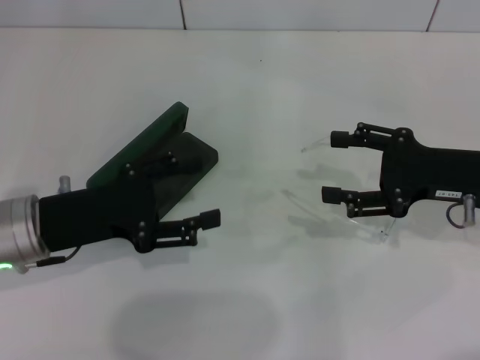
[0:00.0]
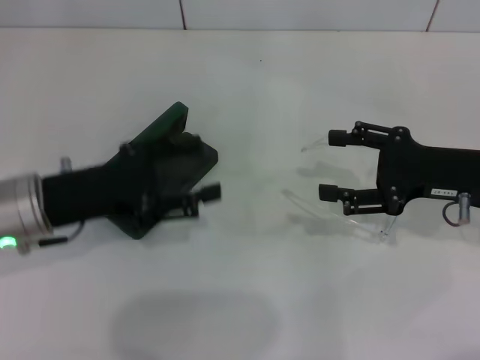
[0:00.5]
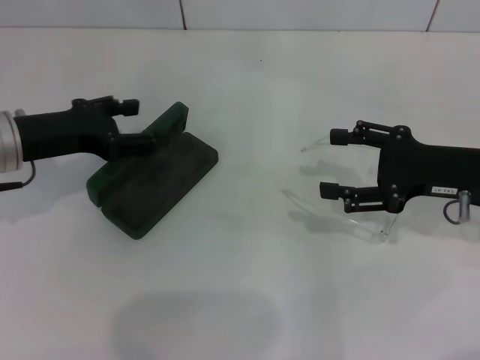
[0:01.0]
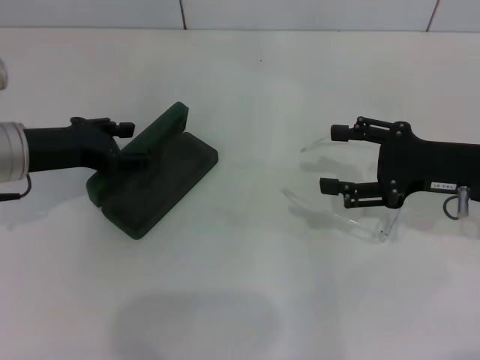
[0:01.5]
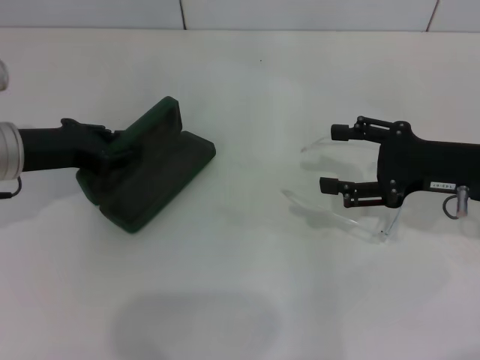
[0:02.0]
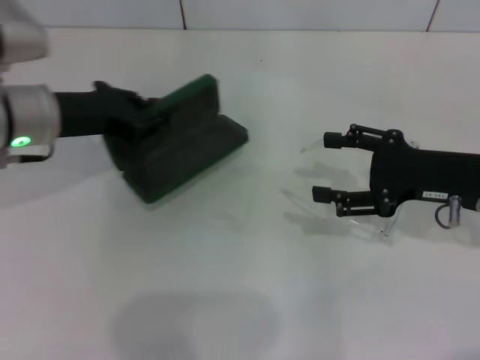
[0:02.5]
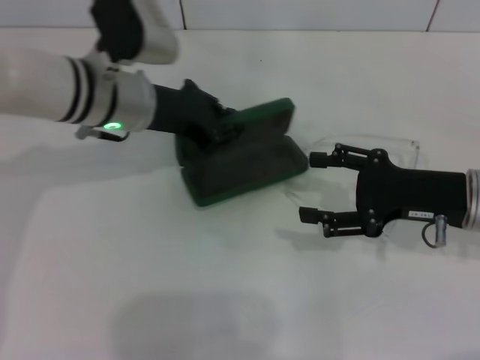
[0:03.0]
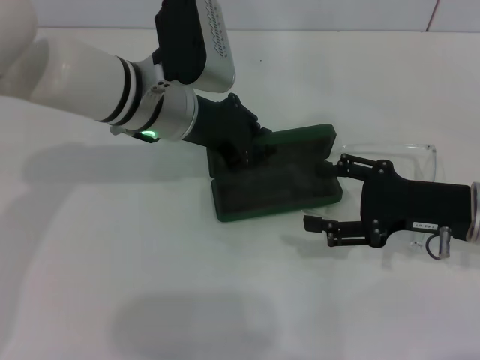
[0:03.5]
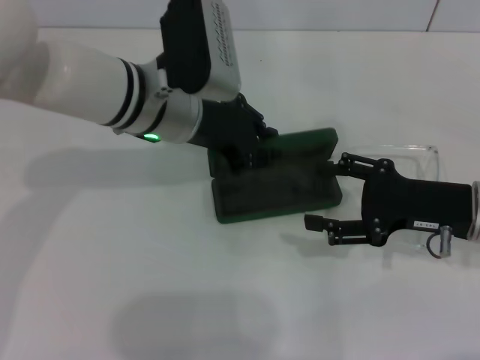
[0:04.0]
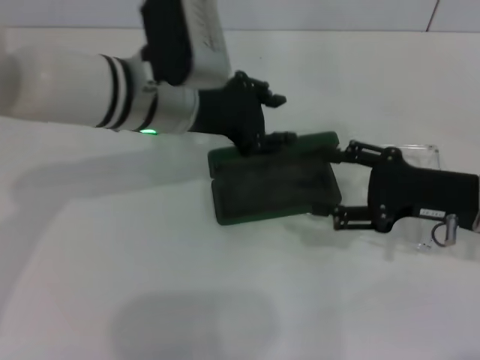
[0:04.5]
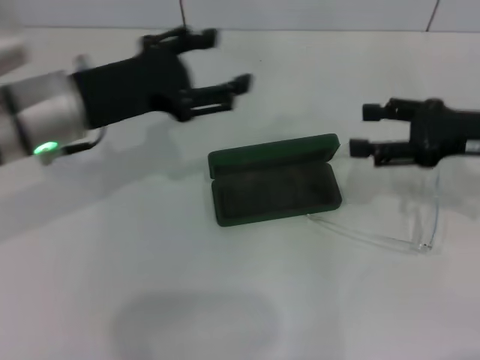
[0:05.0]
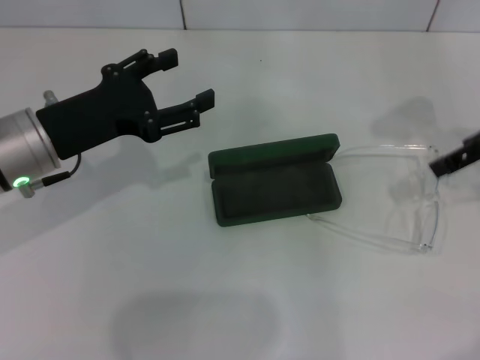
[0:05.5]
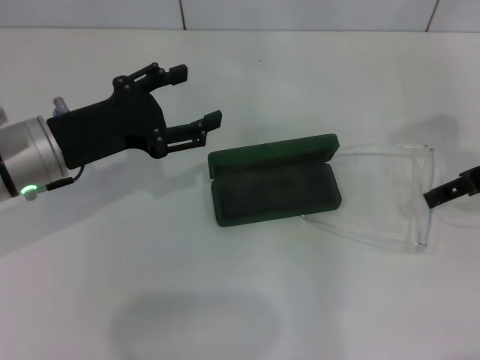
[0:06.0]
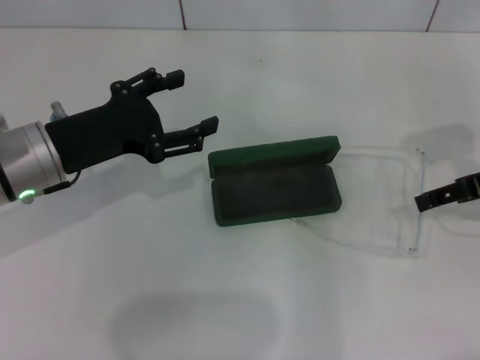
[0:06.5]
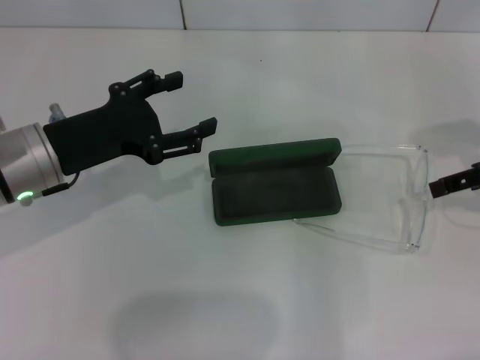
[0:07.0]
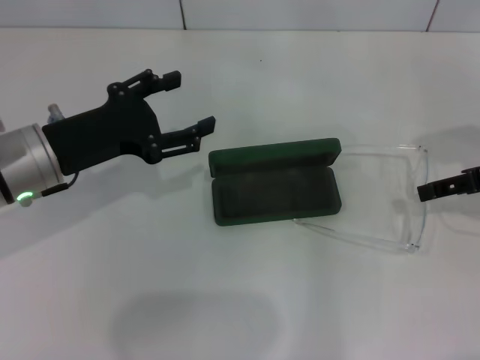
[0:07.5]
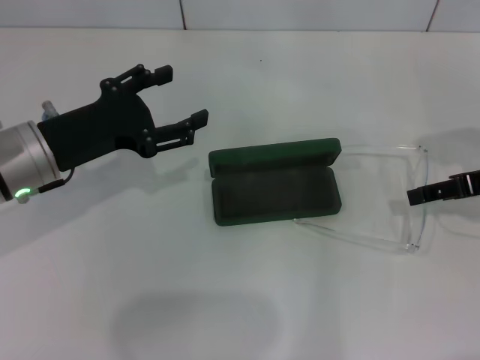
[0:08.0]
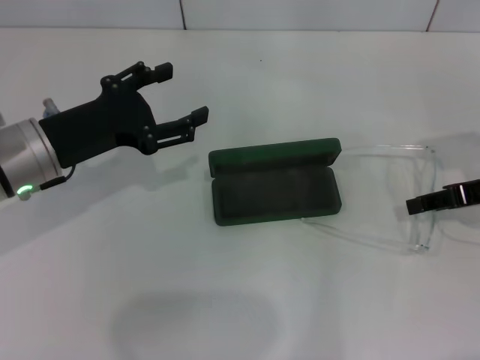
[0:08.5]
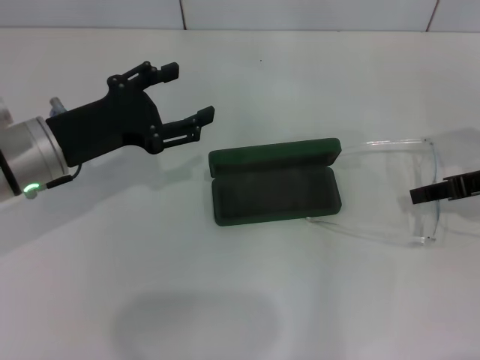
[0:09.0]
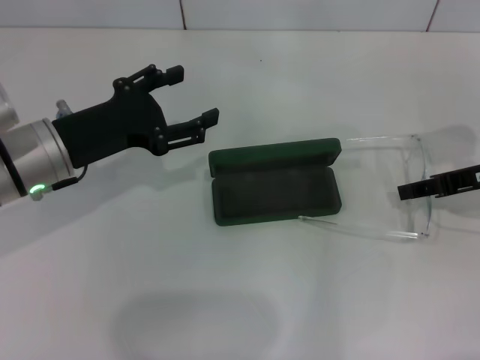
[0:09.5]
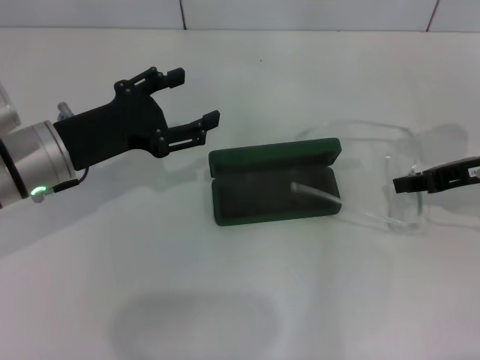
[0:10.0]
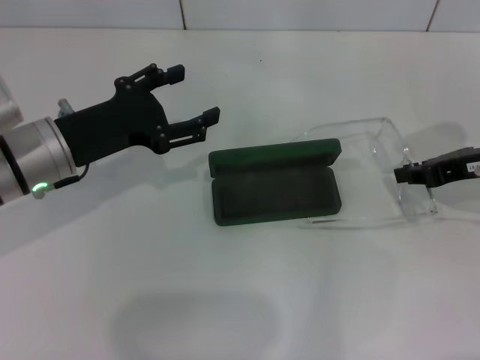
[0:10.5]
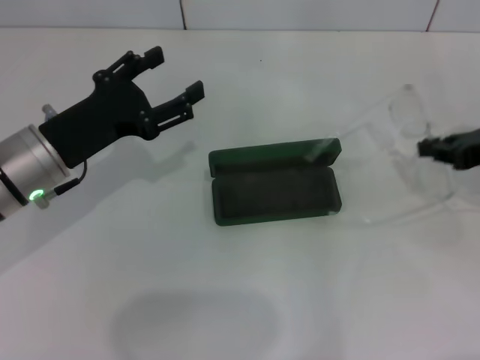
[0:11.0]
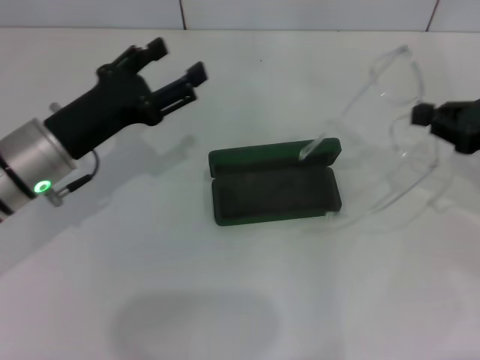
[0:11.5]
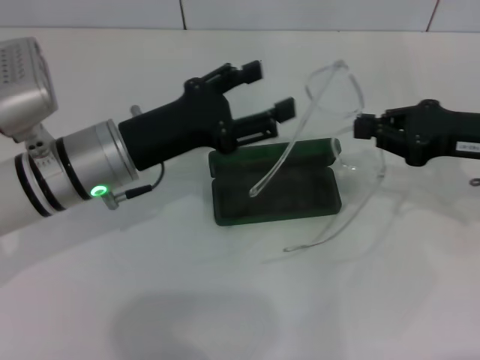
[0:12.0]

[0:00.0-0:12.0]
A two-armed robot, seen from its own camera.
Step, 0.0 to 1.5 s: Grab the glasses case with your left hand.
Step, 2.0 to 4.0 s: Place the glasses case in the center of the table with your left hand.
Step, 4.5 to 9.0 s: Grab the eyeglass frame with your right hand.
0.0 to 2.0 s: The left gripper moves forward, about 5 cm, and closes up.
2.0 to 4.0 s: The left gripper heads to the right, covering roughly 15 cm.
4.0 to 6.0 s: The left gripper moves to the left and backward, about 15 cm, and opens up. Meanwhile the right gripper travels upward by roughly 10 cm.
6.0 to 8.0 s: The grippers move only a little.
8.0 to 10.0 s: The right gripper closes up.
10.0 to 12.0 s: The left gripper shifts approximately 5 cm to the right.

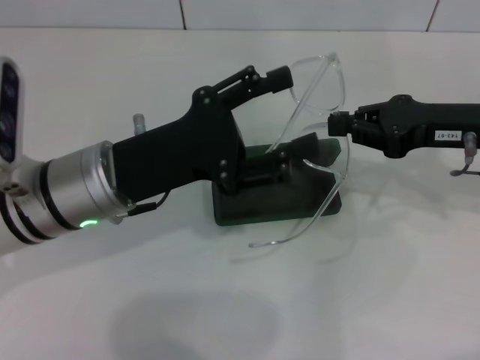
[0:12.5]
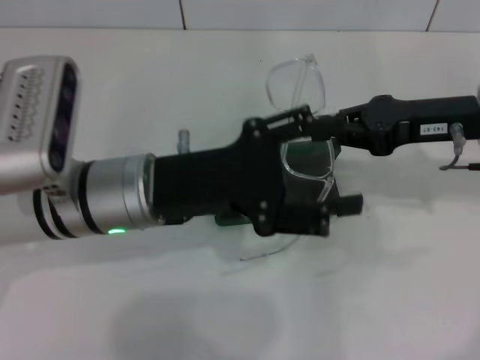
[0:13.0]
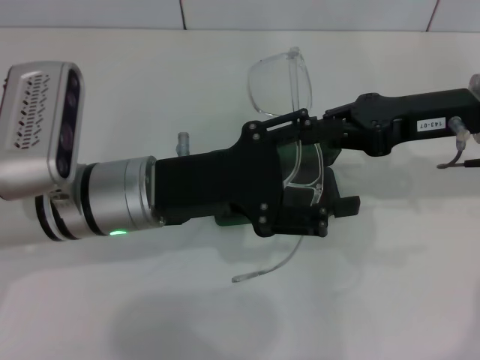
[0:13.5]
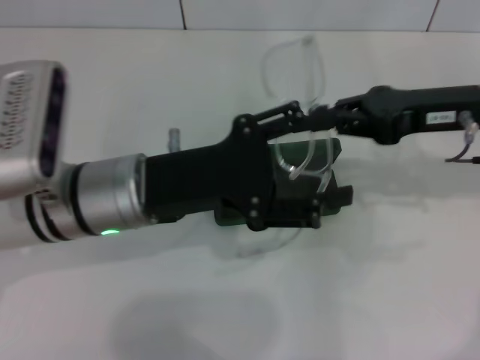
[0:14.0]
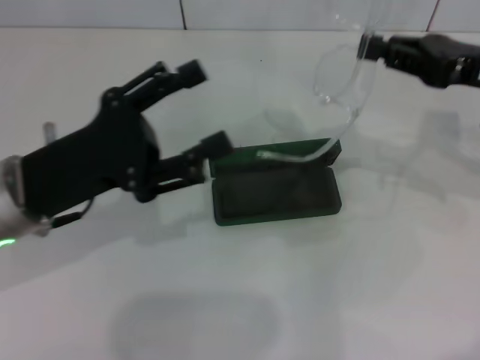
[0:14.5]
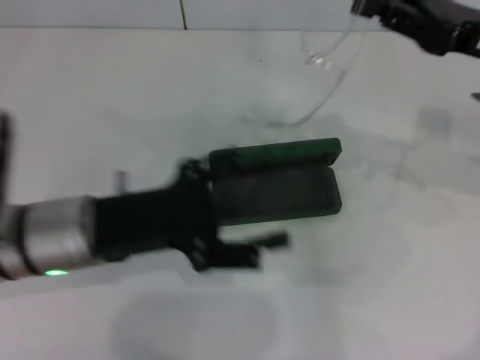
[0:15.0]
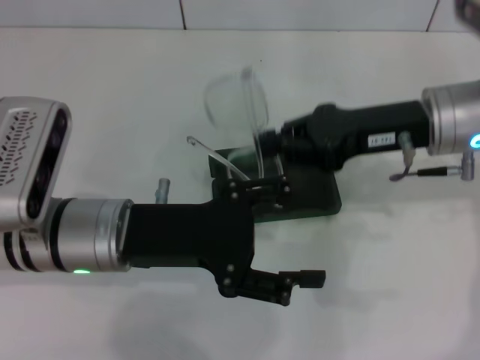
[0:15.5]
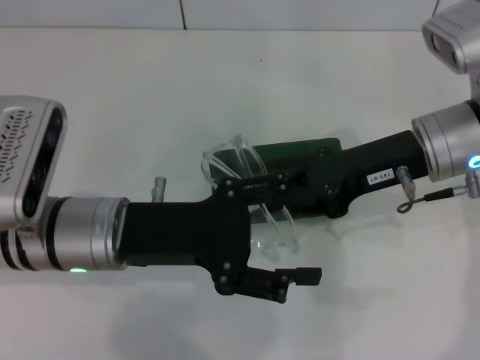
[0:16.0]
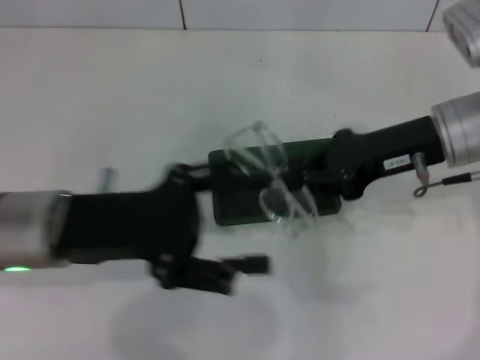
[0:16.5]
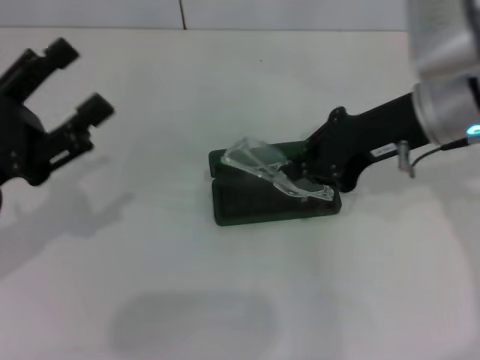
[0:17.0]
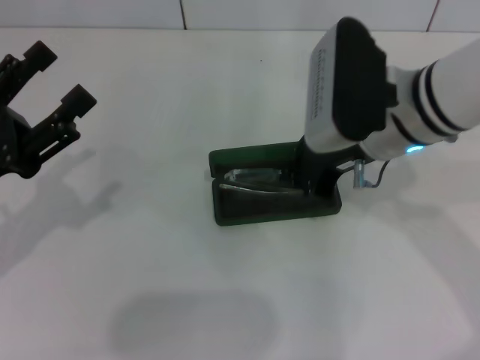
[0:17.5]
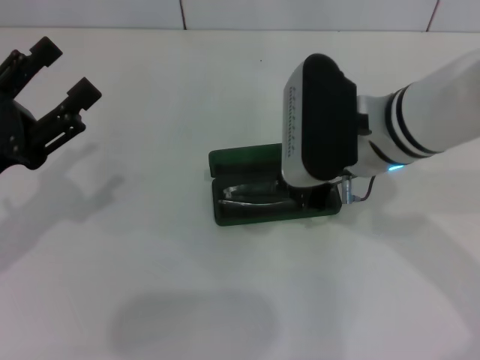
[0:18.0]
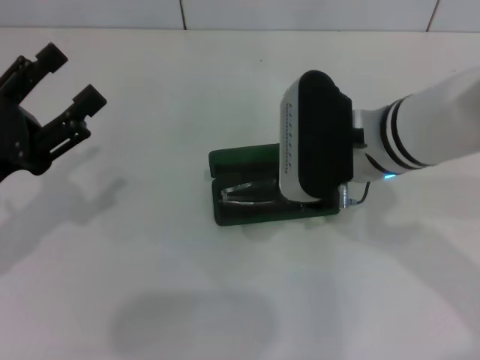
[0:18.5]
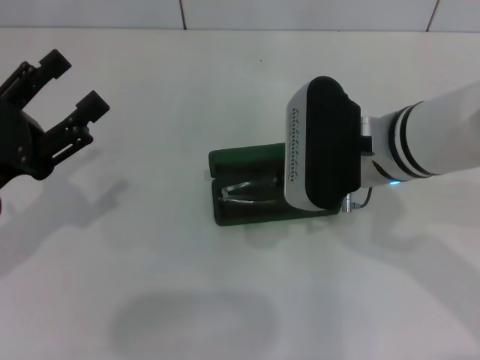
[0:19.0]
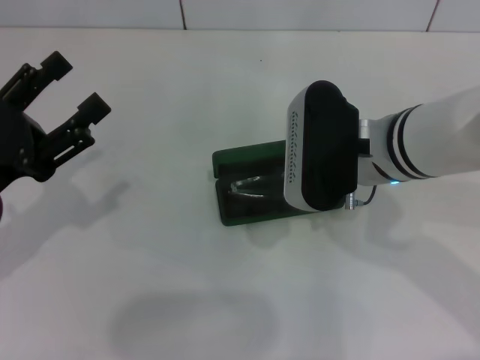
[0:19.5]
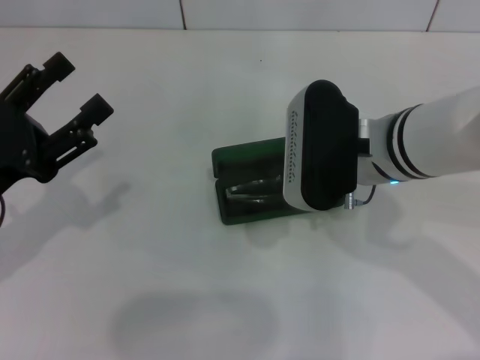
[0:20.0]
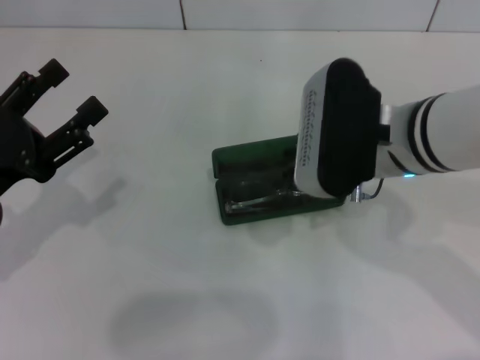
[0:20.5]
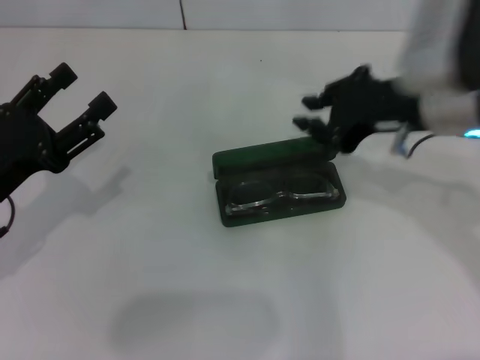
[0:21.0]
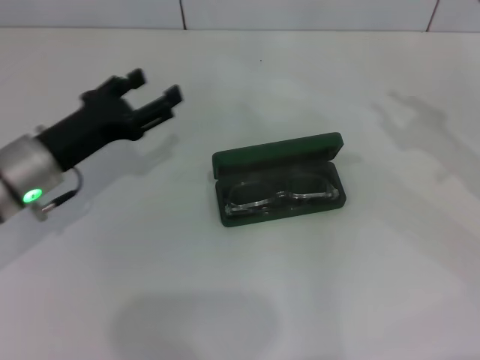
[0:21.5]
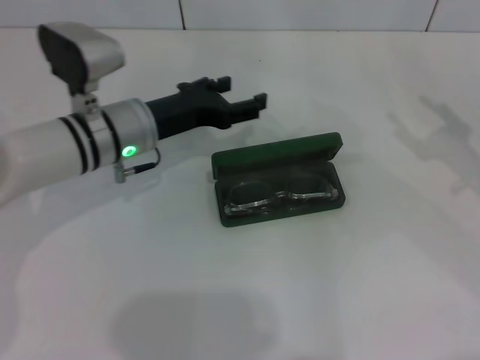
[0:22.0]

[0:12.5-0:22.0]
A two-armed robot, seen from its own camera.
Step, 12.5 to 16.0 s: Fold the frame with your left hand.
Step, 16.5 to 20.0 s: Put the glasses into the case with your right hand.
12.5 to 14.5 s: The left gripper goes approximately 5 cm to the left.
14.5 to 16.5 s: The right gripper moves to the left, some 10 cm.
16.5 to 18.0 s: The grippers both shift to the left by about 10 cm.
18.0 to 20.0 s: There are only small adjustments of the grippers.
20.0 to 22.0 s: The left gripper shifts about 20 cm forward and to the right. The right gripper is displaced to the right by some 25 cm, and opens its fingers.

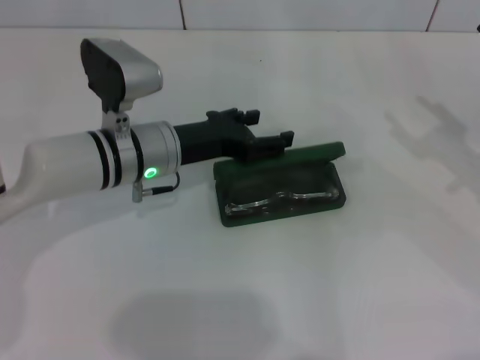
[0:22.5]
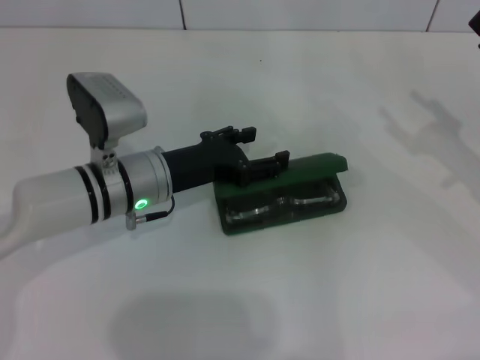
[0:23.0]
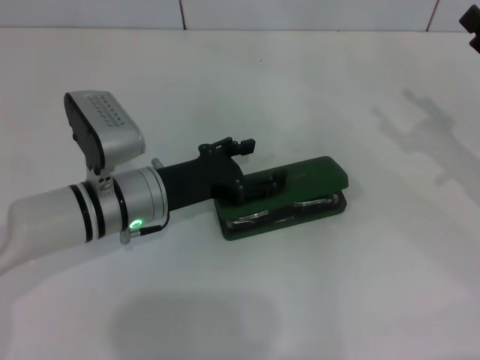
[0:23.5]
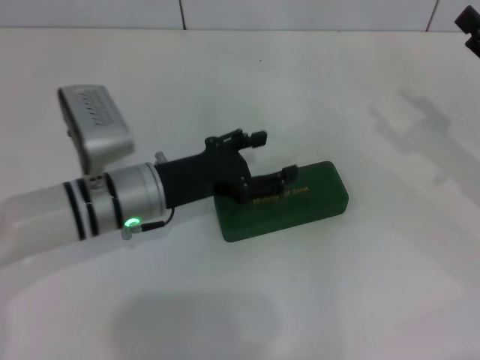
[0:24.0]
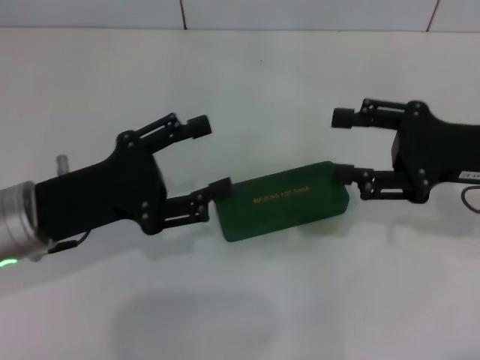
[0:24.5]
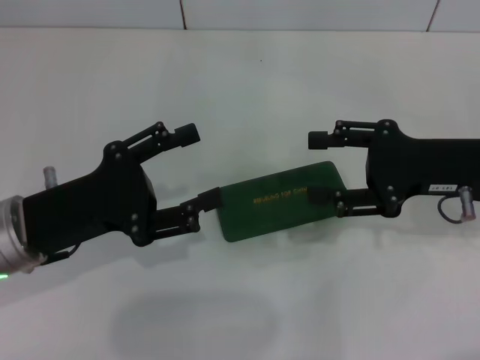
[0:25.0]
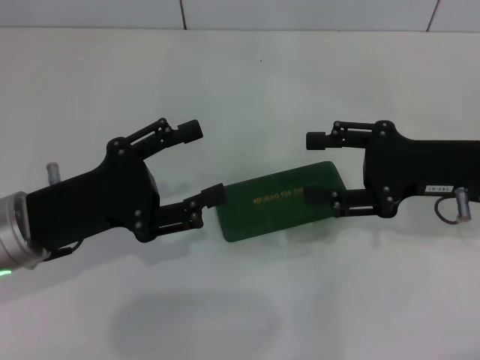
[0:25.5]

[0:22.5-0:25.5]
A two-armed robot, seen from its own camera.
22.5 to 24.0 s: The left gripper ends up roughly 5 cm from where it was.
24.0 to 25.5 s: The left gripper heads to the left and backward, covering about 10 cm. The right gripper goes some 10 cm to the left.

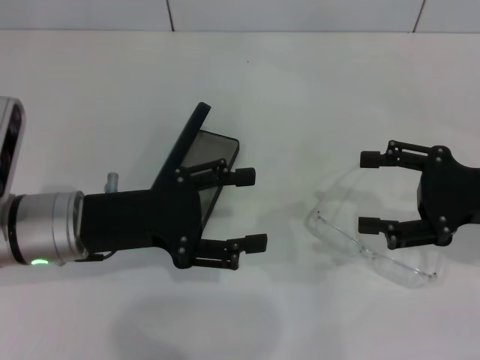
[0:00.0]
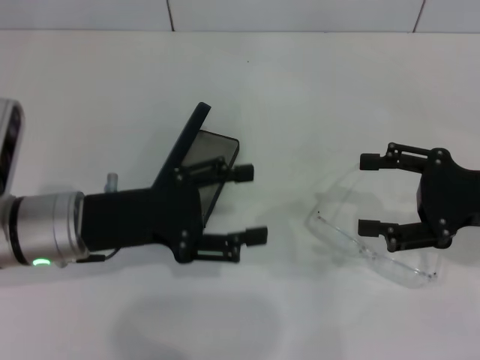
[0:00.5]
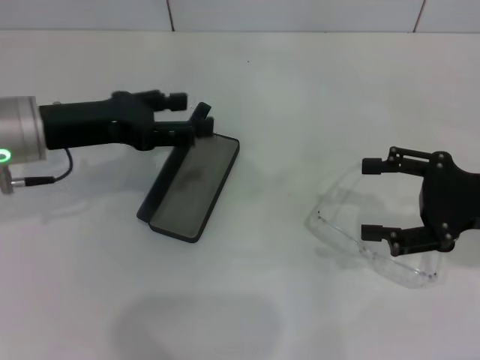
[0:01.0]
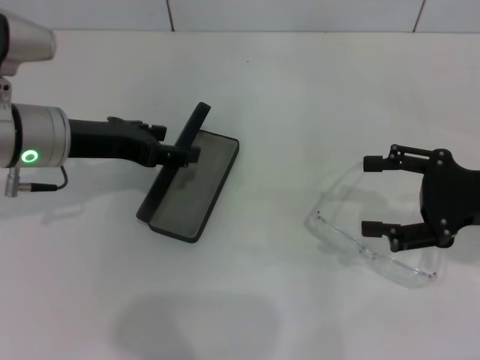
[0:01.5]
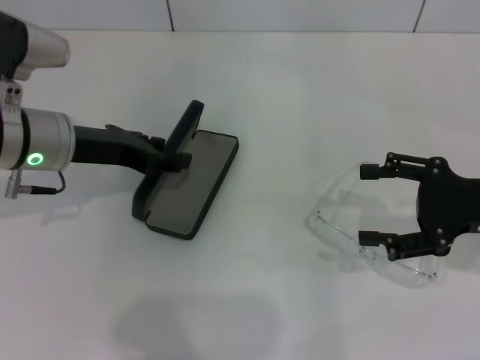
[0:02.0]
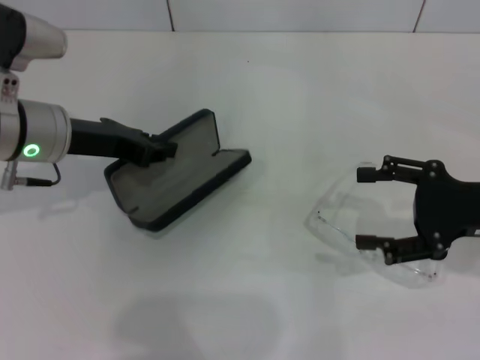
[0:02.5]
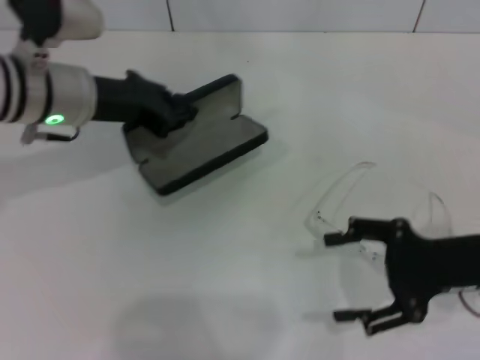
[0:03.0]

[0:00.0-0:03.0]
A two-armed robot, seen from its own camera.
Step, 0.0 to 2.0 s: Grab the glasses case with your left hand.
0.0 to 1.5 s: The left gripper shifts roughly 5 cm forward.
1.5 to 3.0 s: The right gripper shifts by roughly 5 cm; the left gripper closes up.
